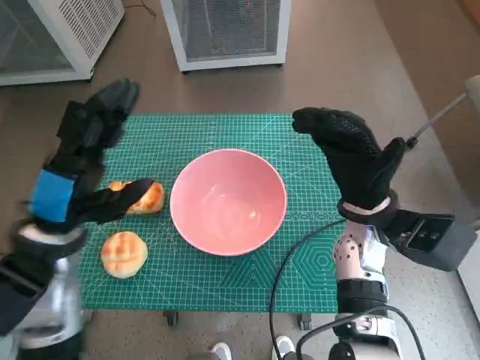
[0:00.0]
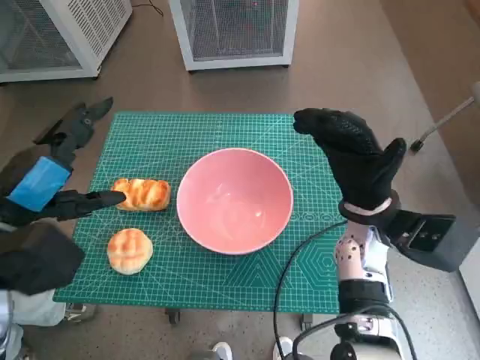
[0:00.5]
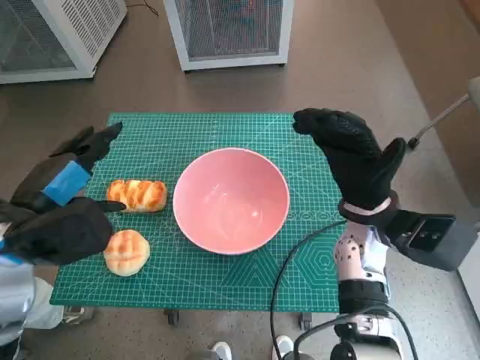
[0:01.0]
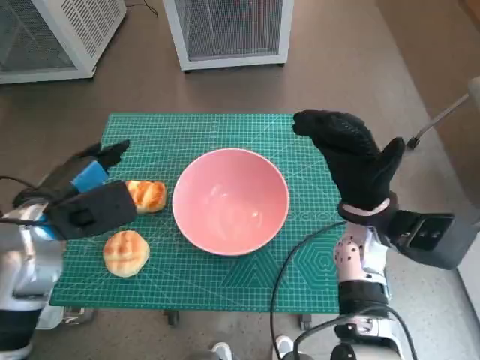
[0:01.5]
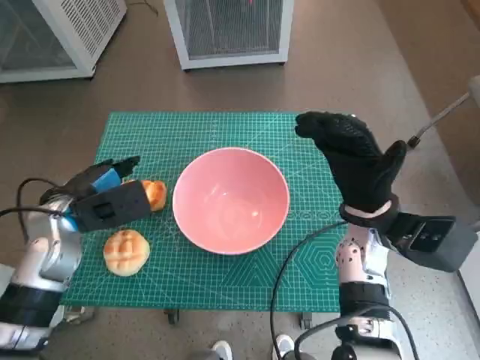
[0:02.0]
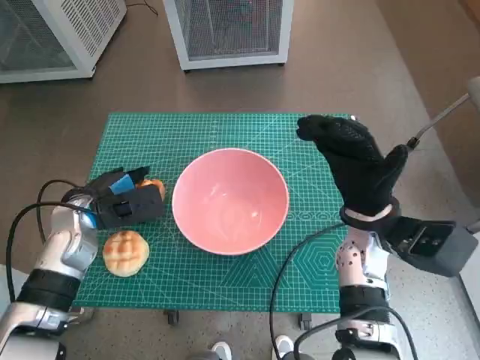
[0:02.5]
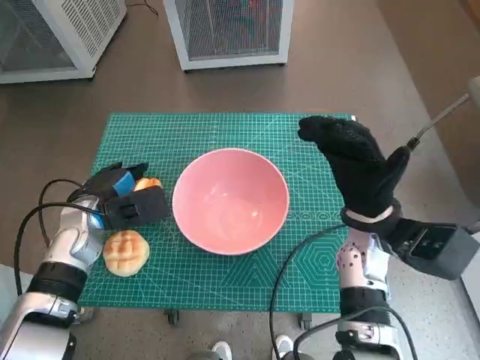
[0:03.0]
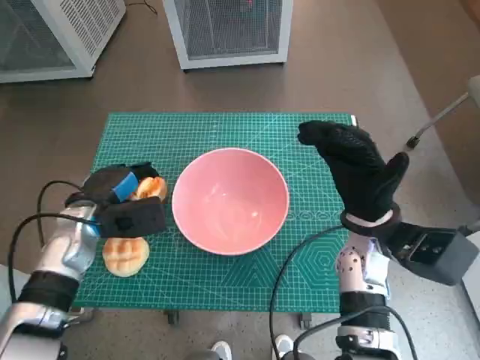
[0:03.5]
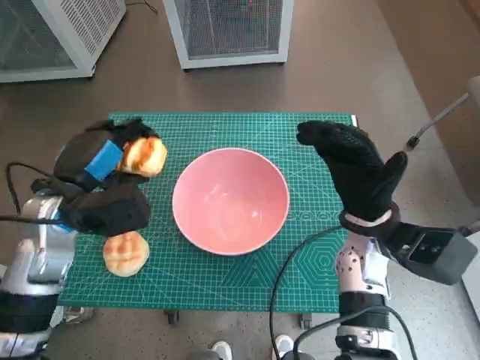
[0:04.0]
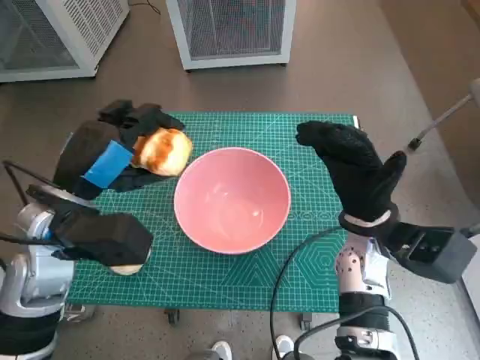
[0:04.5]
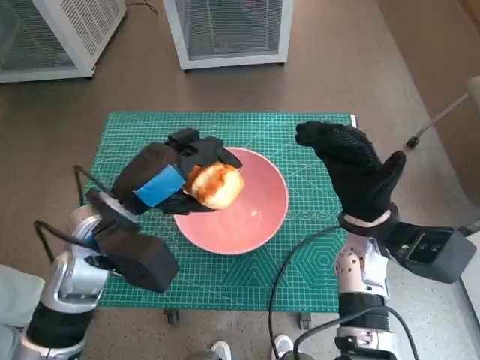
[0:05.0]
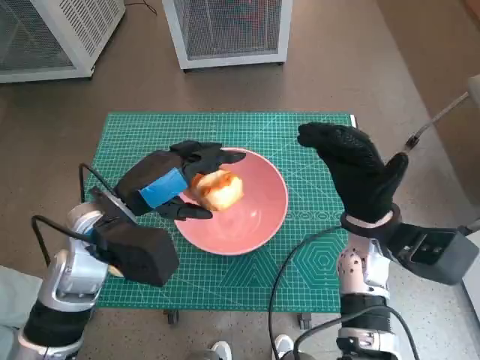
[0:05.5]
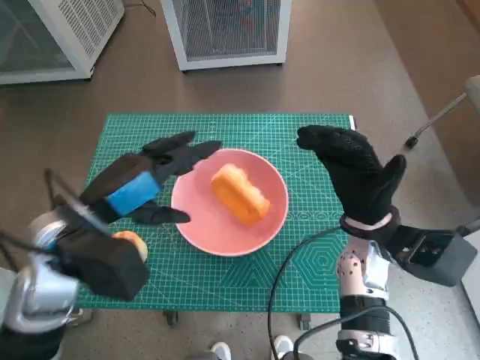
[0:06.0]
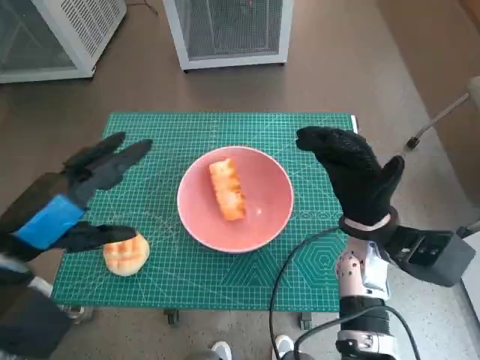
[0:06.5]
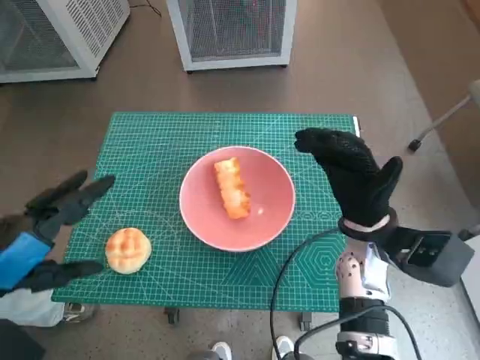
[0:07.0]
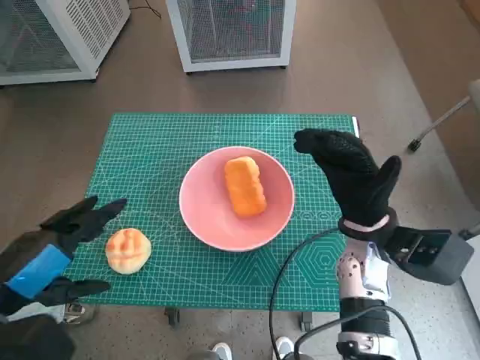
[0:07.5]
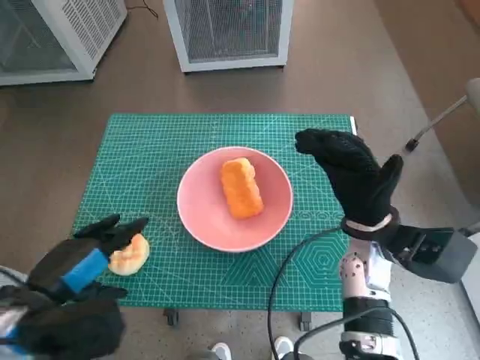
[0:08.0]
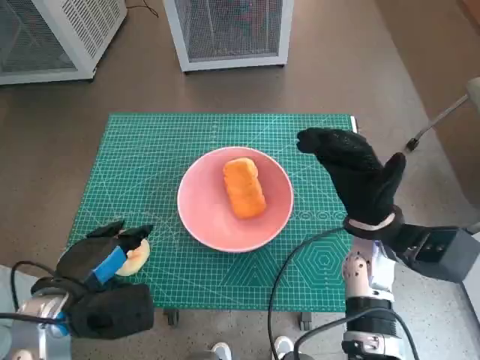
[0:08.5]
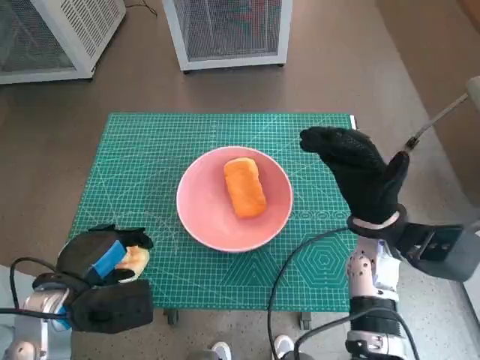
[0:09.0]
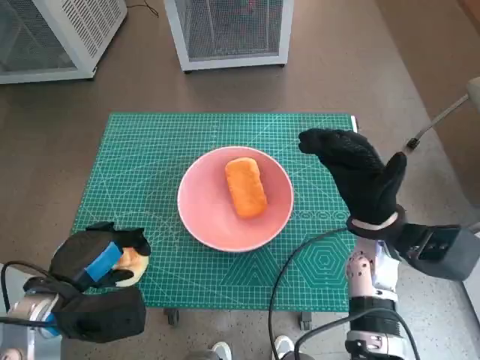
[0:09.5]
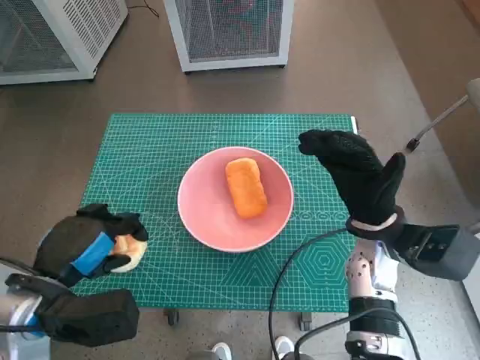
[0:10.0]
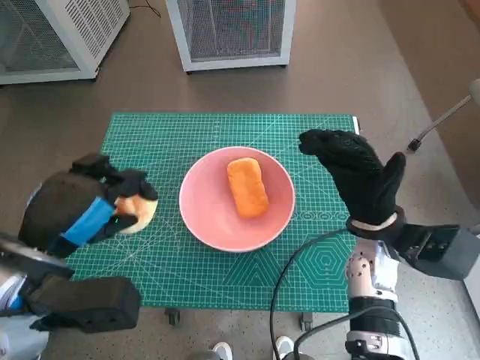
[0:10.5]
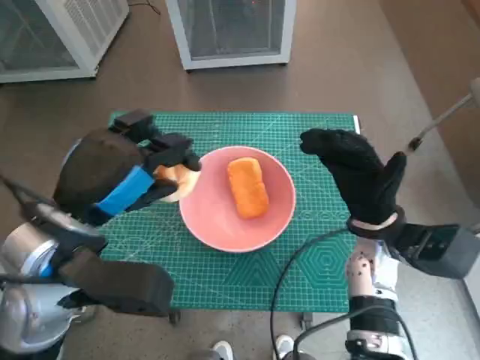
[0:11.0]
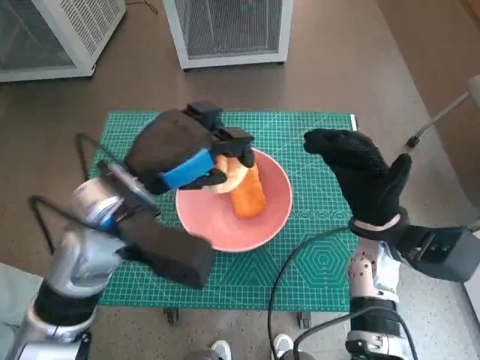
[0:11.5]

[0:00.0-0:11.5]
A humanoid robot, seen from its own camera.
Task of the whole recording: Push the bowl into the center of the table and put the bread into the bowl.
Step, 0:00.0 to 0:02.5: Grasp the long bread with left hand.
Step, 0:03.0 to 0:05.5: Place the long bread in pink bowl with left hand.
Step, 0:06.0 to 0:08.5: Grasp the round bread with left hand.
0:00.0 to 0:02.0: The left hand shifts about 5 cm forward.
0:04.0 to 0:06.0: The left hand shifts by approximately 5 cm.
0:06.0 to 0:07.5: The left hand goes about 10 cm backward and to the left.
0:07.5 to 0:09.5: The left hand travels downward by approximately 10 cm.
0:09.5 to 0:11.5: The left hand heads upward, to the right and forward, covering approximately 15 cm.

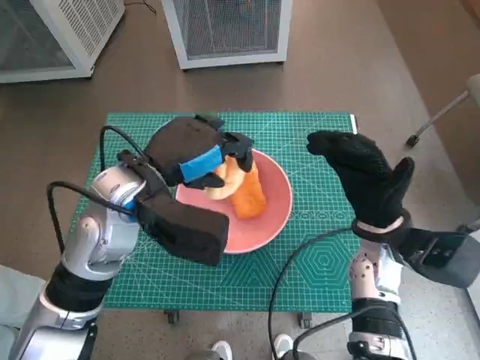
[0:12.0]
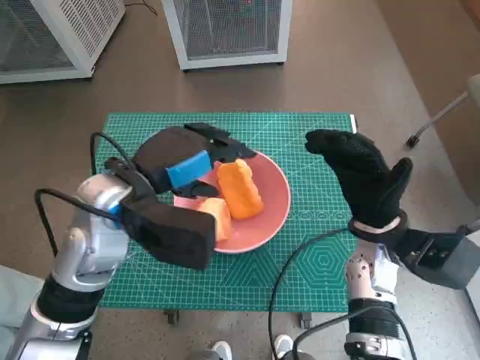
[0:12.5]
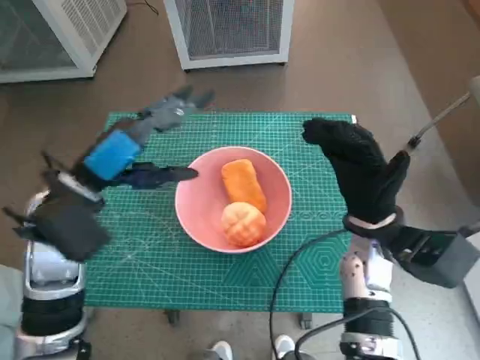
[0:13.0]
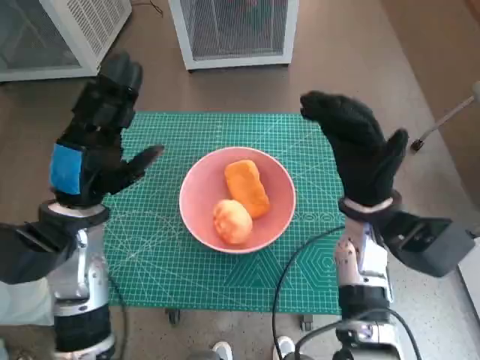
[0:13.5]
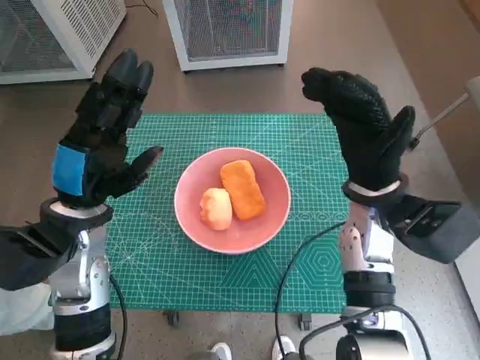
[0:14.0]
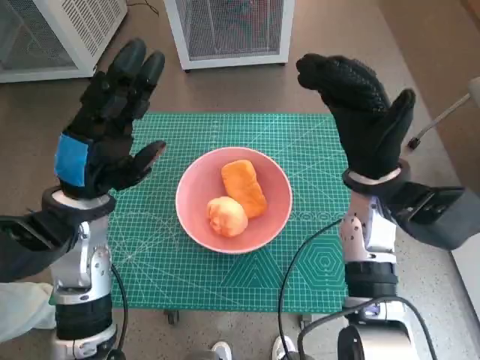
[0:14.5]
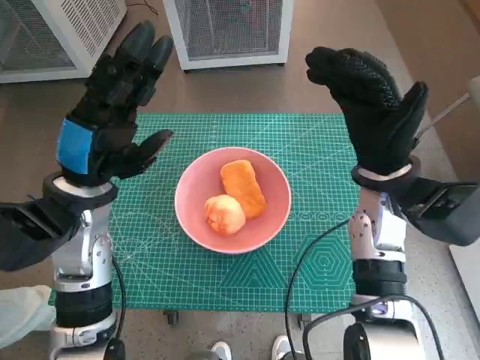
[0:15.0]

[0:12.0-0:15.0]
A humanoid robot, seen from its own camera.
Task of the whole recording: Push the bowl into the center of the table and put the bread into the bowl.
0:12.0 to 0:13.5: The left hand shifts roughly 10 cm to the left.
